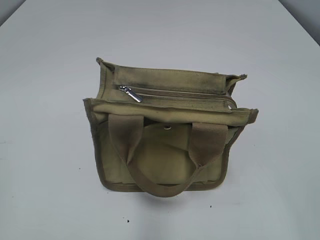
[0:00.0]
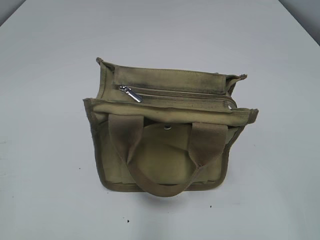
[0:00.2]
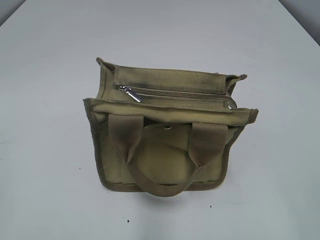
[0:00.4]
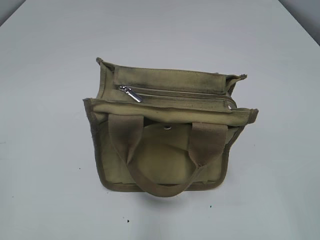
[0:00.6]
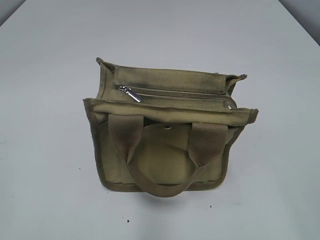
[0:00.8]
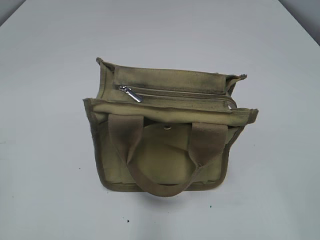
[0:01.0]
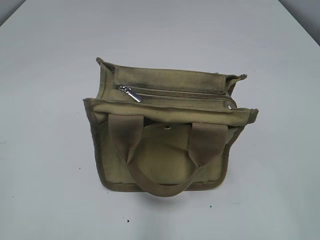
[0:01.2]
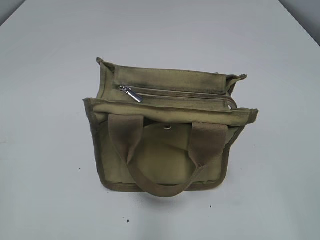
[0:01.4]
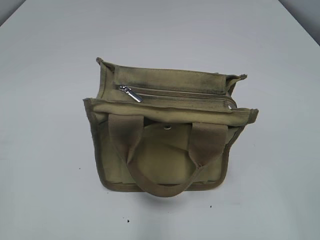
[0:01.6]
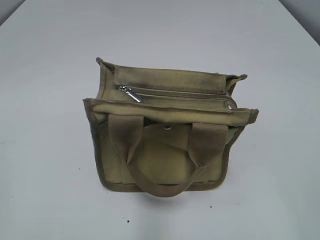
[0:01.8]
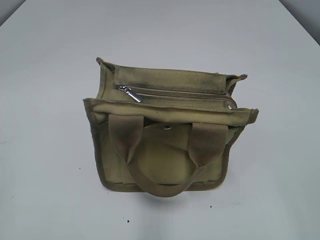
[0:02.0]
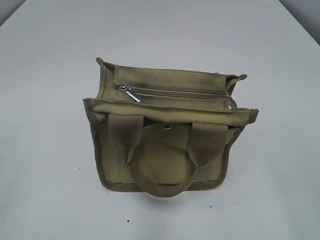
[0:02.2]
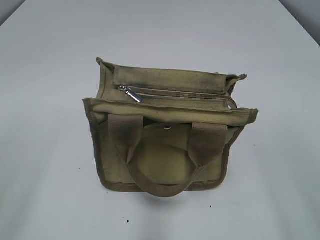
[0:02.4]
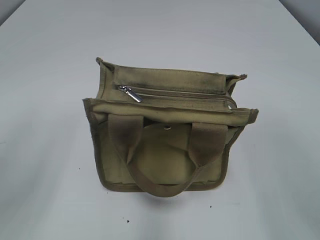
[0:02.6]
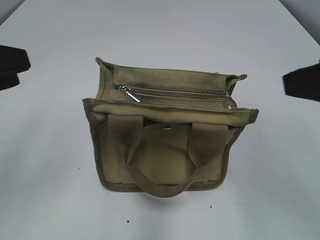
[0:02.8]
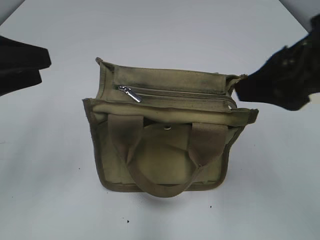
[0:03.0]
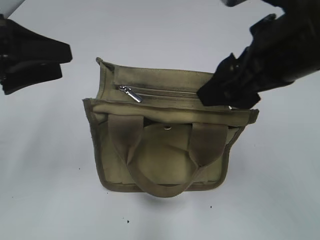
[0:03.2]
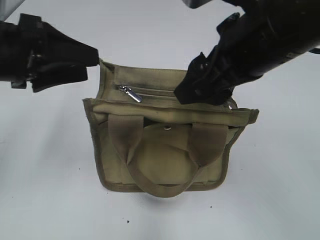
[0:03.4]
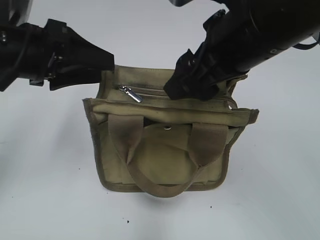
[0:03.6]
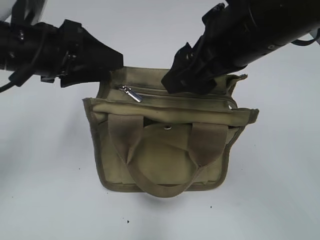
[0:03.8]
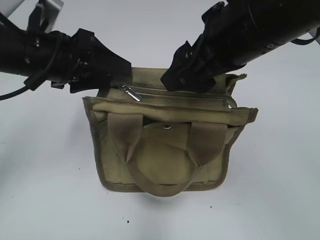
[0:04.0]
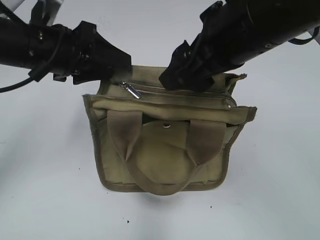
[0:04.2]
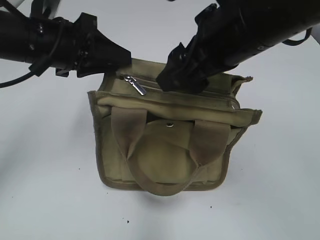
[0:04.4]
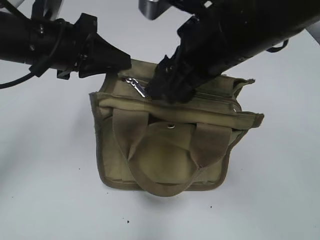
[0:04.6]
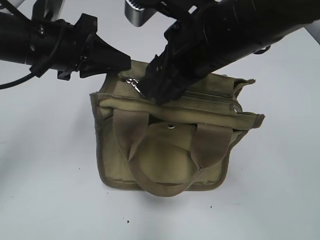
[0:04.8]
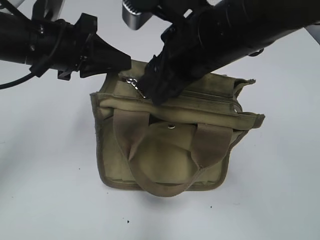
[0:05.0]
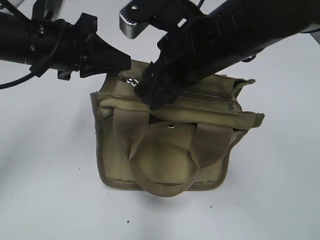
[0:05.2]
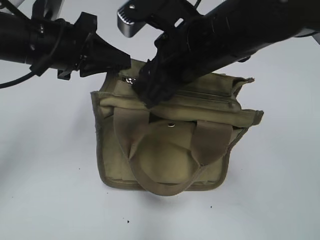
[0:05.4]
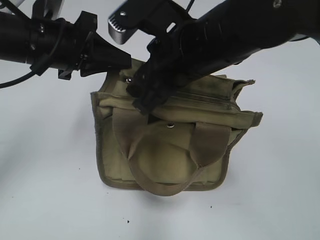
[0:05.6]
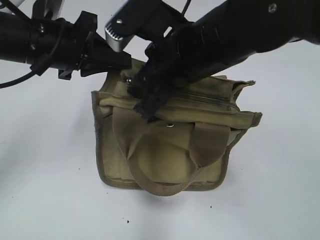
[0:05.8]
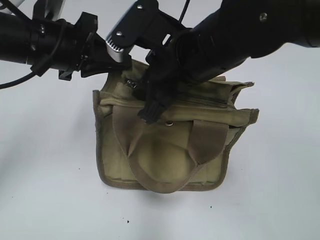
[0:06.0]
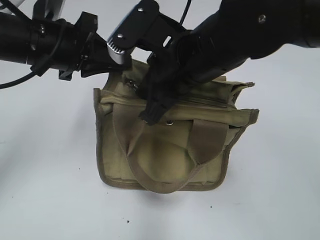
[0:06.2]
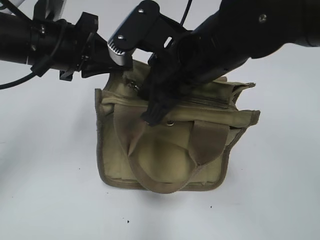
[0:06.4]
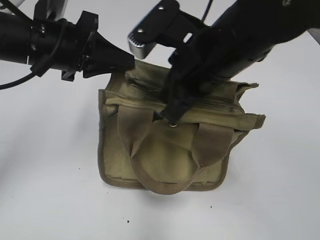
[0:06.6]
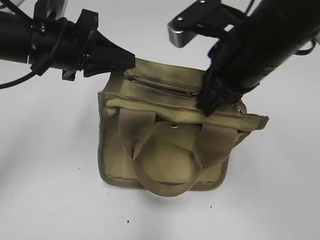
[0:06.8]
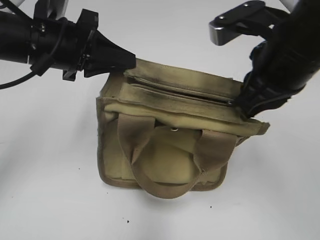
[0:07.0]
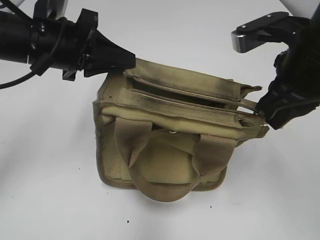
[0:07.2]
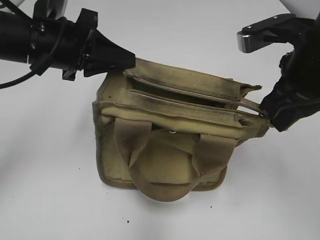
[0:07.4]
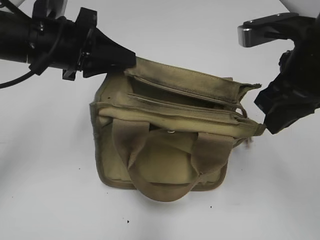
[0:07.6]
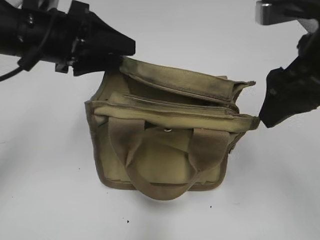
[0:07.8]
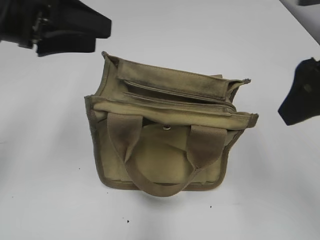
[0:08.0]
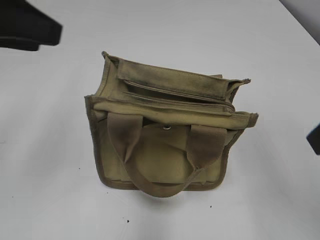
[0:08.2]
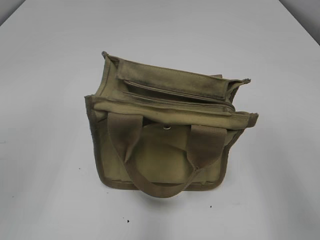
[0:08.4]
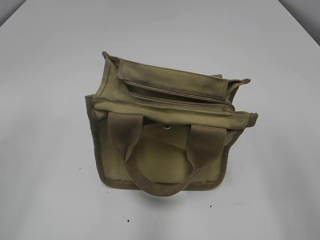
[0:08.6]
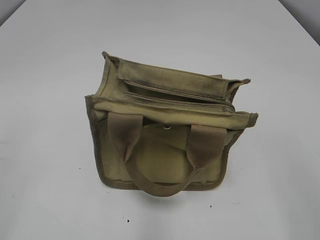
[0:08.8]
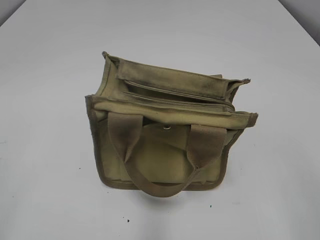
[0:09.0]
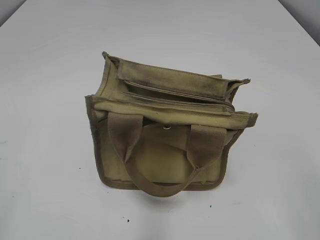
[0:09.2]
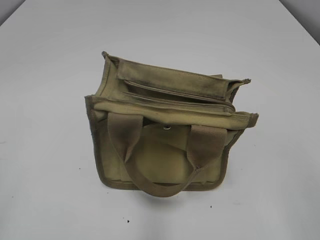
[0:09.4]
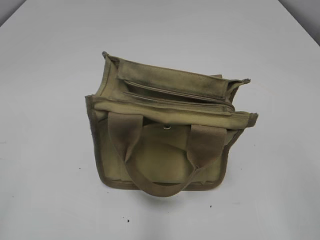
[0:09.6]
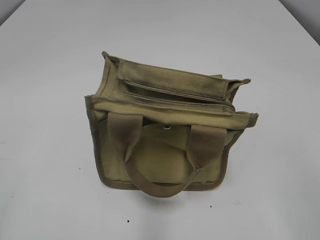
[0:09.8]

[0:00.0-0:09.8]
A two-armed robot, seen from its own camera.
Step, 0:00.0 to 0:07.4: Pull open the zipper with your right hand.
Step, 0:07.6 to 0:07.8: Hold the bag with your left hand.
0:01.4 to 0:02.8: The grippers both shift forward by approximately 15 cm.
0:02.8 to 0:04.2: The left gripper travels forward and to the right by roughly 15 cm; the right gripper goes about 15 cm to the left and forward.
0:04.2 to 0:05.6: The right gripper changes place by about 5 cm. The left gripper closes its fingers.
0:05.6 to 0:07.0: The right gripper moves to the right, about 10 cm, and closes up.
0:07.0 to 0:08.4: The right gripper is displaced backward and to the right by roughly 15 cm, and opens its fingers. Meanwhile the left gripper travels backward, upward and to the left by approximately 20 cm, and opens.
0:08.4 to 0:09.8: The right gripper travels backward by about 10 cm.

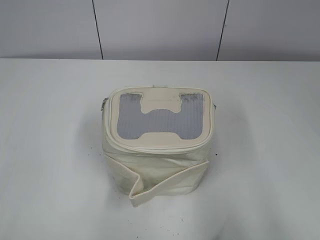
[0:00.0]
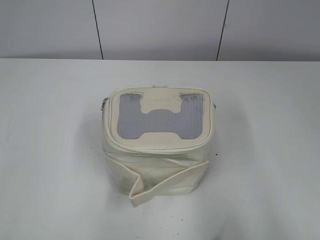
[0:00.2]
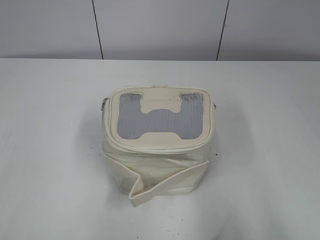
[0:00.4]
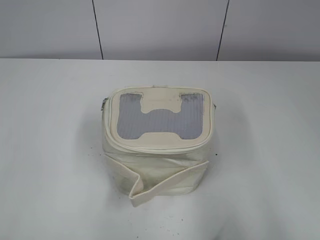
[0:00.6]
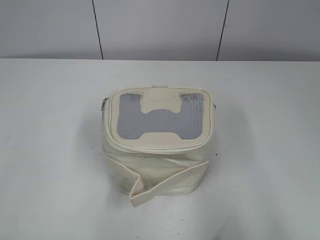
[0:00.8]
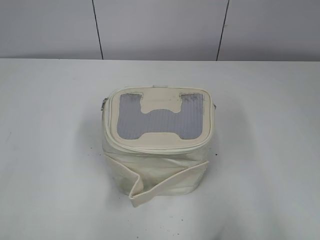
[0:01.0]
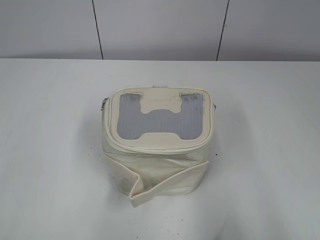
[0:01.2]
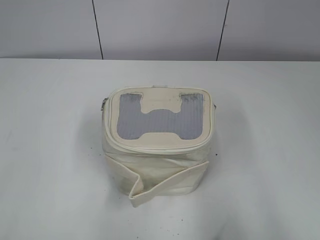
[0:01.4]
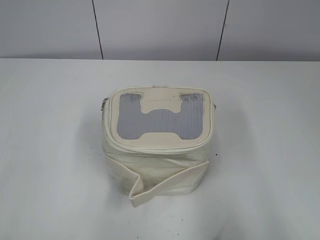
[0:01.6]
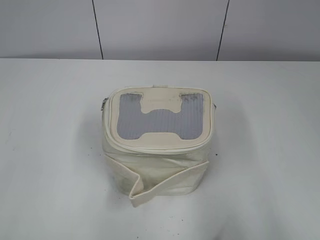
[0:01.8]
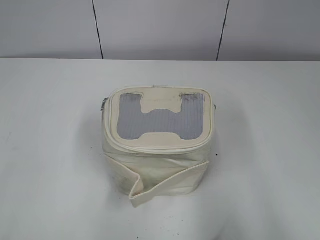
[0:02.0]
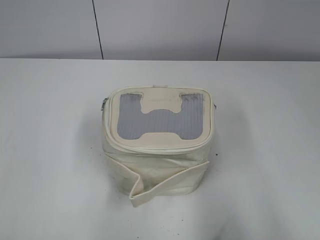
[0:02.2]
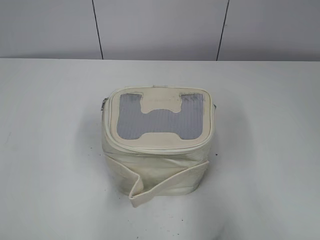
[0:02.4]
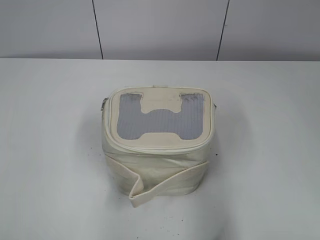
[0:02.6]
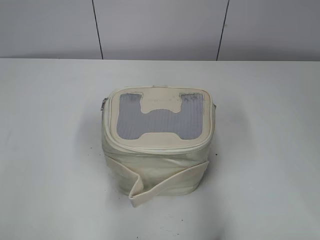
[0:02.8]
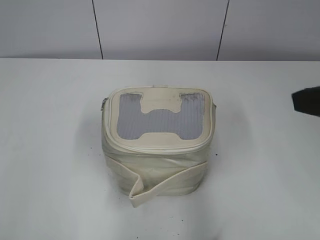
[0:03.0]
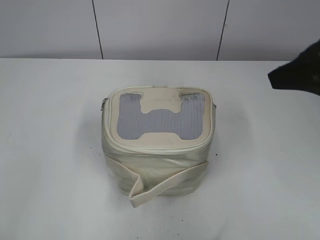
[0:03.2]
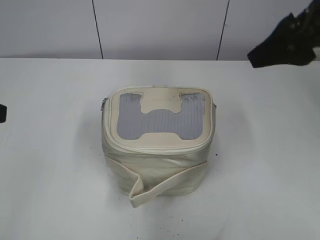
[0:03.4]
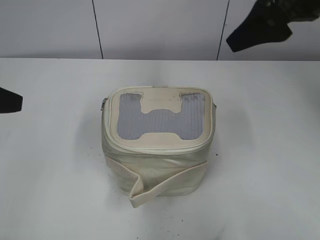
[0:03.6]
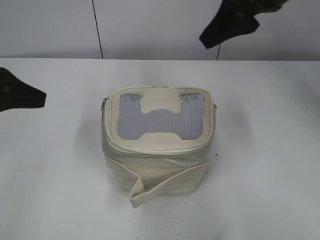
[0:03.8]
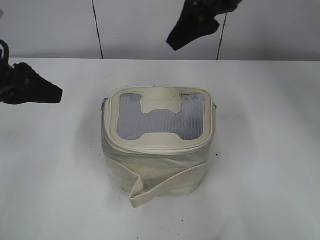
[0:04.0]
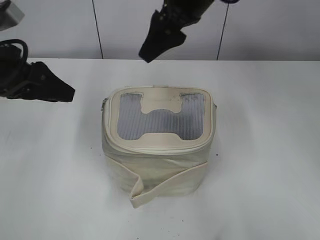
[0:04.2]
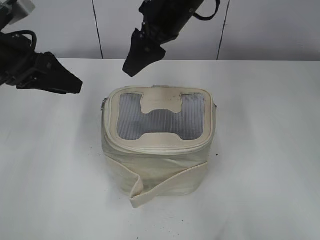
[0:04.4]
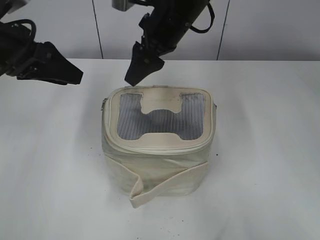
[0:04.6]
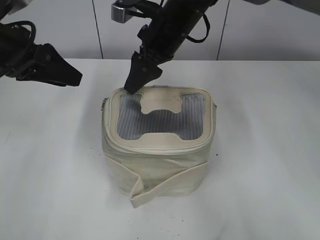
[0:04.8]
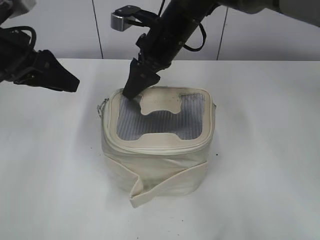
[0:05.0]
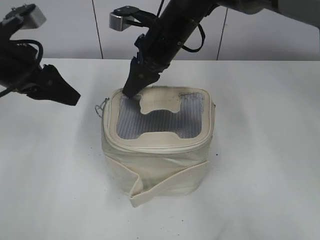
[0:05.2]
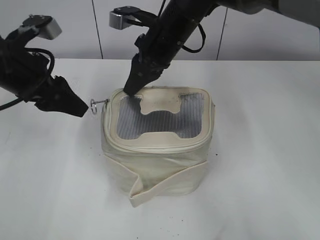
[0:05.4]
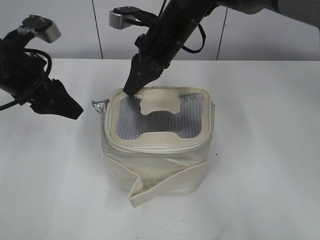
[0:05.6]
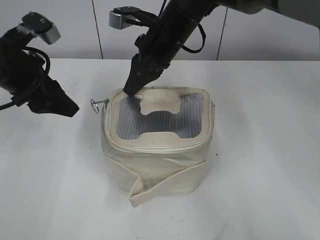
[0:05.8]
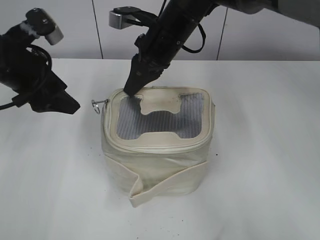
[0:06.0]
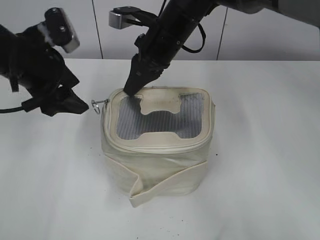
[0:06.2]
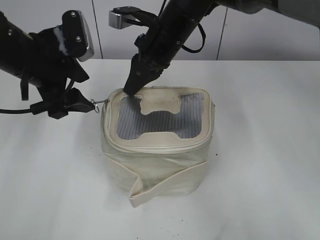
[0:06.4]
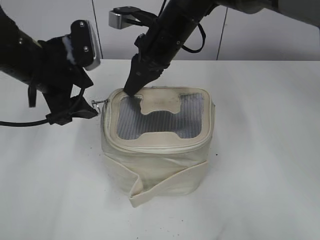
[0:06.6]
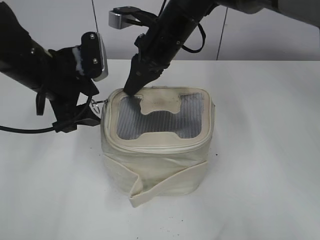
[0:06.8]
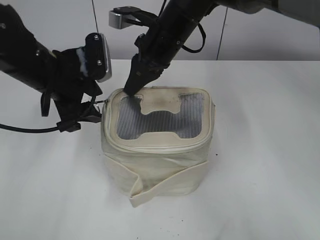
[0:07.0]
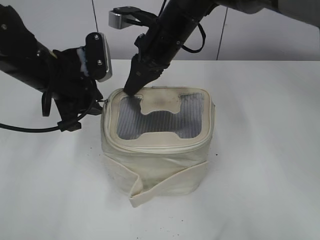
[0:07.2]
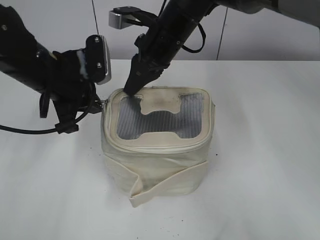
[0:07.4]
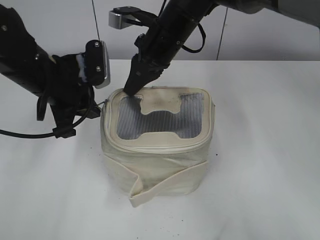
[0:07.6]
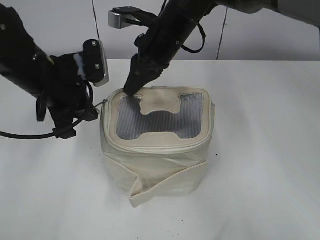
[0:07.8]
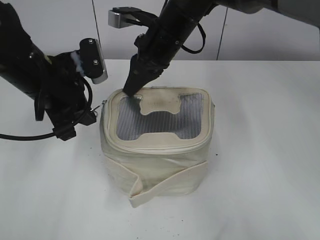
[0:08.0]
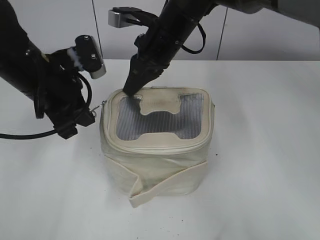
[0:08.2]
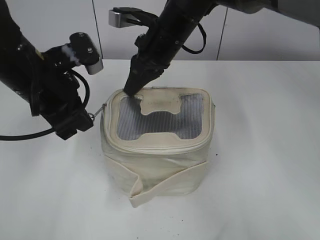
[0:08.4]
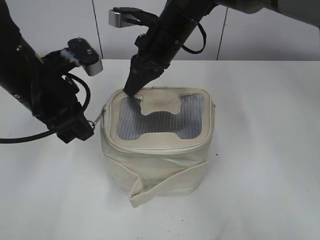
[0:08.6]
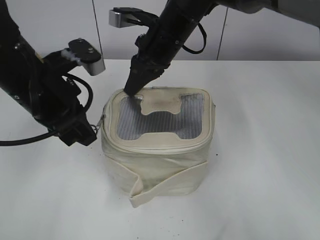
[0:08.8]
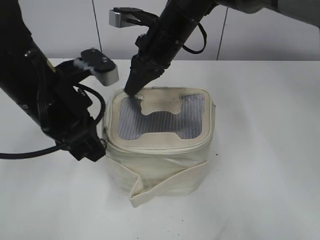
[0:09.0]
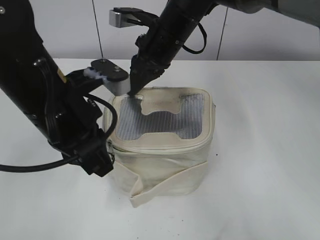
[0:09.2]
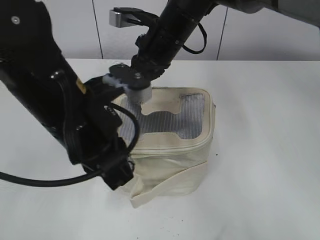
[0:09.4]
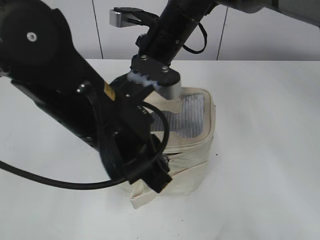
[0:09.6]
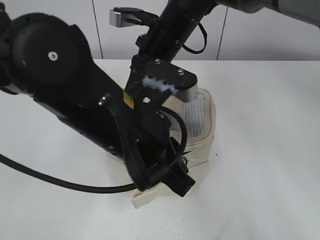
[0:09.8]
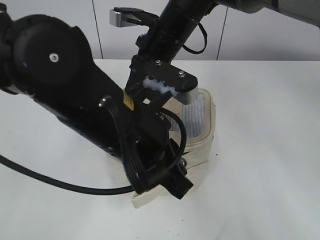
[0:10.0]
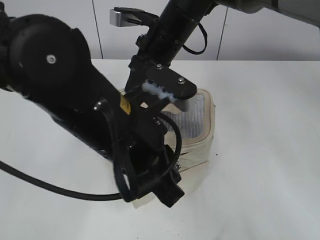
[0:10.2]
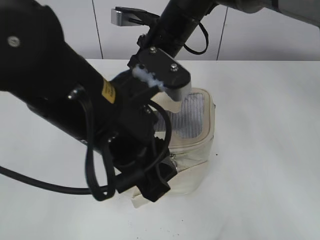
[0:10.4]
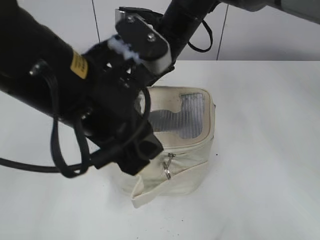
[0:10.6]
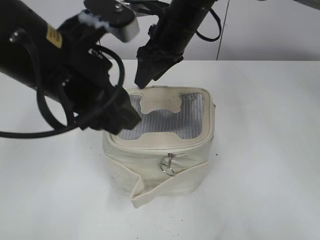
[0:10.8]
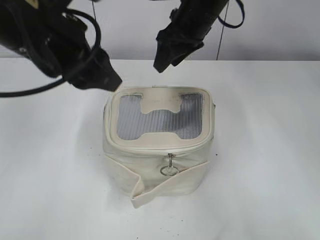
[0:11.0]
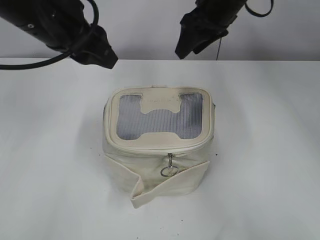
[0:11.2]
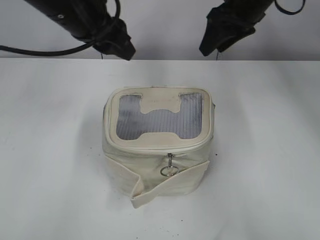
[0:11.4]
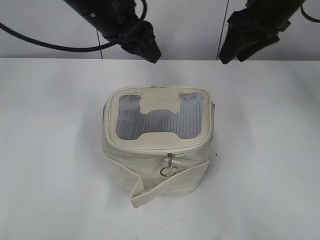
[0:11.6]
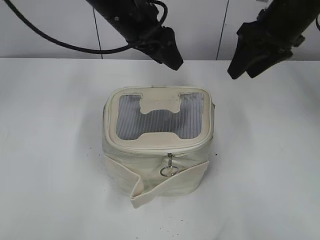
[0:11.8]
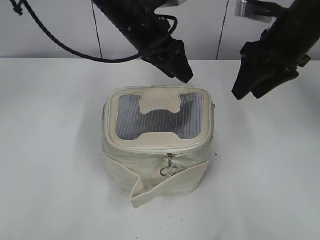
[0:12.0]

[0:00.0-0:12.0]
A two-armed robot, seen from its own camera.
Step, 0:00.0 to 0:10.2: Zip up the bag with your left hand.
0:01.6 to 0:03.0: The left gripper heads forward, covering about 10 cm; the right gripper is displaced forward by some 15 cm.
0:03.0 to 0:04.4: The left gripper shifts roughly 20 cm forward, while the right gripper shifts about 30 cm forward and to the left.
0:04.4 to 0:06.0: The right gripper shifts approximately 5 cm downward, and closes.
0:06.0 to 0:07.6: The left gripper shifts approximately 5 cm to the right, and closes up.
0:07.6 to 0:09.0: The left gripper travels backward by some 5 cm.
0:09.0 to 0:10.4: The left gripper is displaced to the right and backward by roughly 10 cm, and opens up.
0:10.4 to 0:12.0: The right gripper shifts roughly 20 cm to the right, and opens its fingers, while the left gripper moves forward, roughly 20 cm, and opens.
